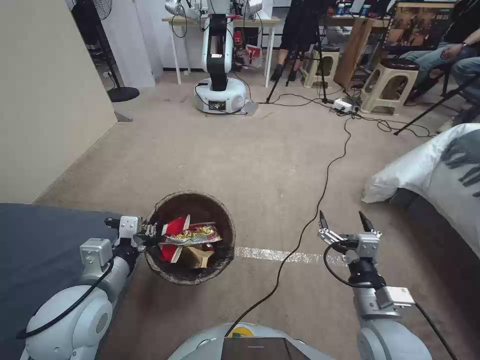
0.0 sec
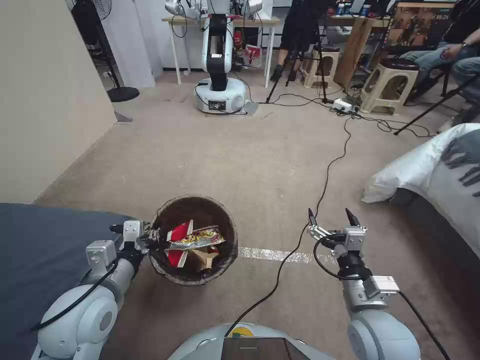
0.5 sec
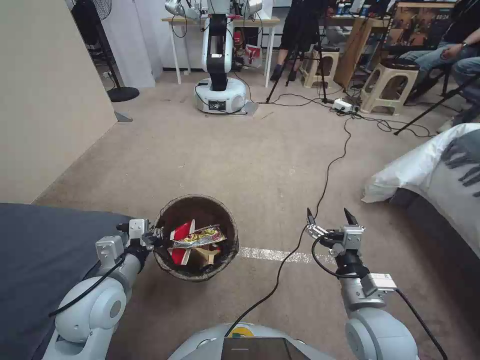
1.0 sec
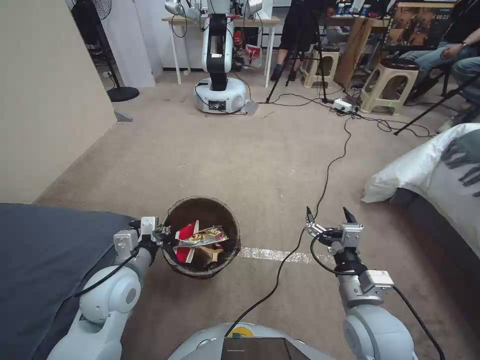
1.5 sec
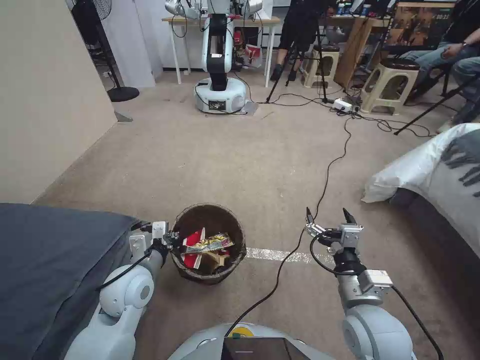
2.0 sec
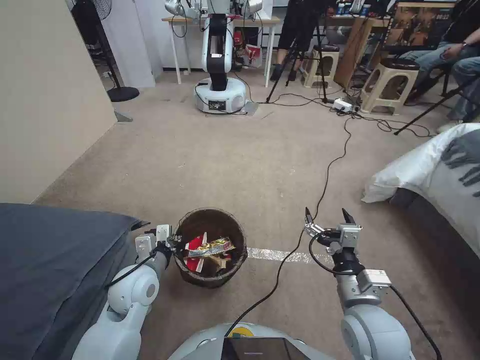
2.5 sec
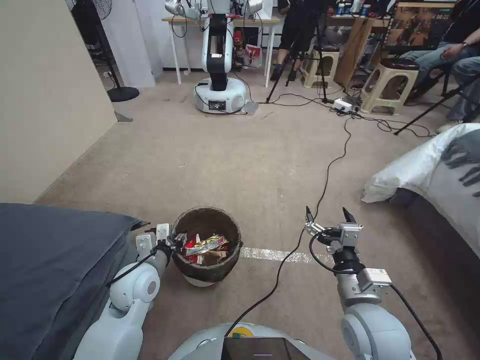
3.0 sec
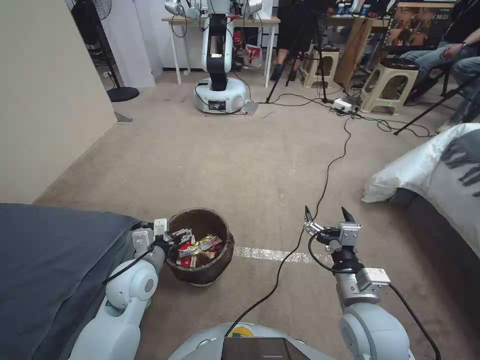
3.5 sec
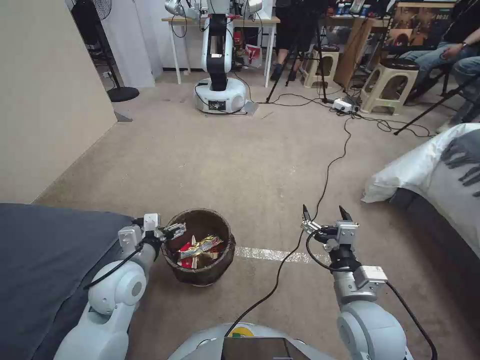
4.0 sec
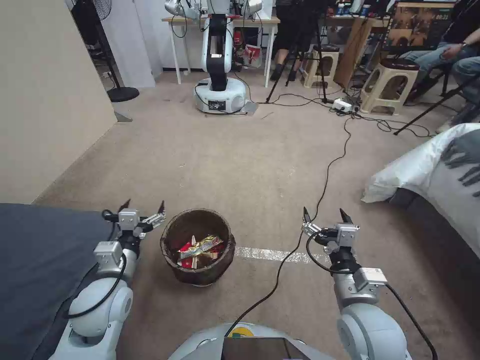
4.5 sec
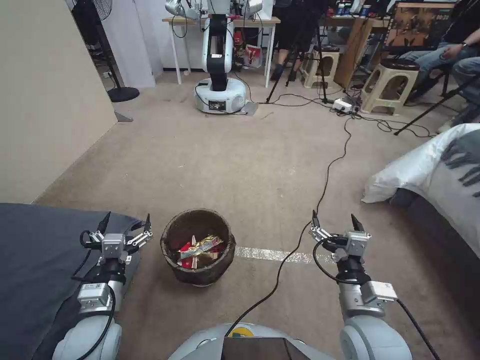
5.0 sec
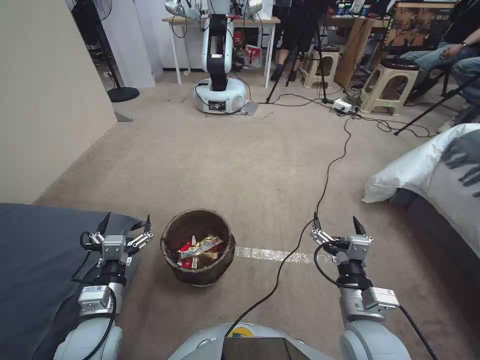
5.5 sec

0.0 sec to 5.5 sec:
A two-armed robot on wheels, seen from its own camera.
Task of the whole recording: Pick up the trash bin, then pick up the garbage from the floor and place it into the trash bin.
0.0 sec to 2.0 sec: The left gripper shifts some 10 cm downward and forward.
2.0 sec to 3.5 sec: The left gripper opens its fingers.
3.5 sec to 5.5 sec: The left gripper goes some 10 cm backward.
